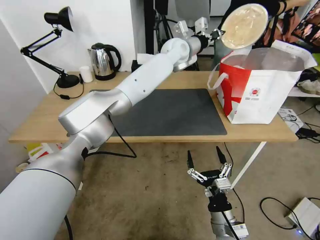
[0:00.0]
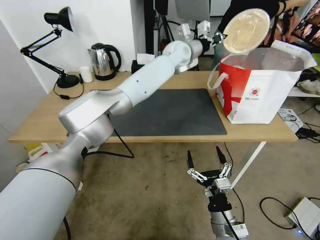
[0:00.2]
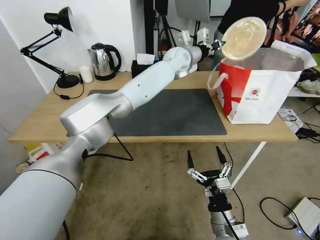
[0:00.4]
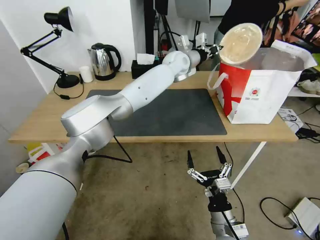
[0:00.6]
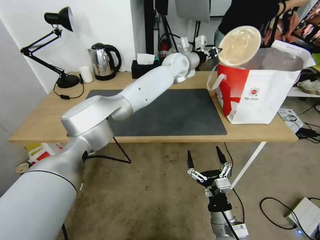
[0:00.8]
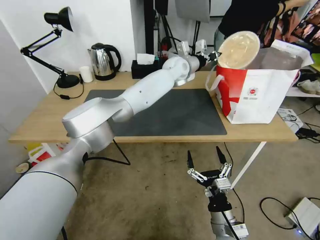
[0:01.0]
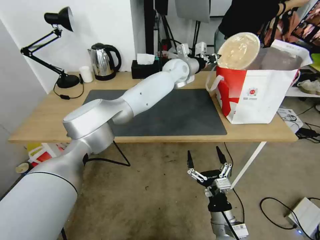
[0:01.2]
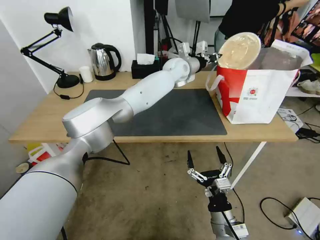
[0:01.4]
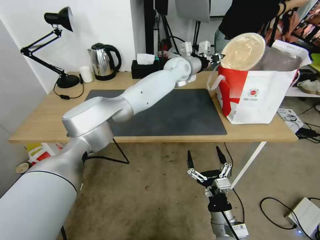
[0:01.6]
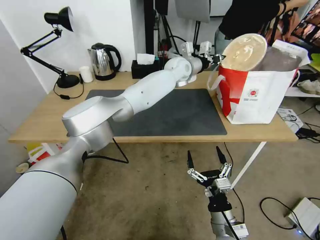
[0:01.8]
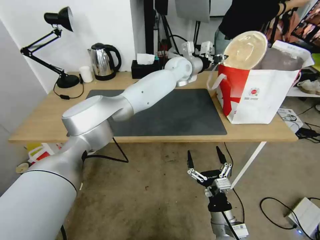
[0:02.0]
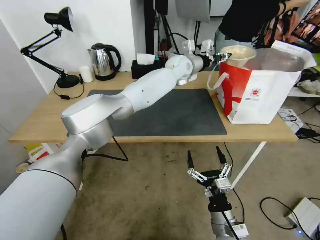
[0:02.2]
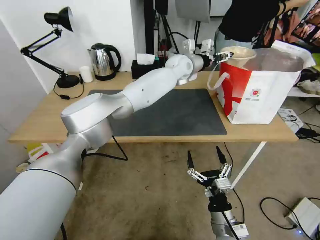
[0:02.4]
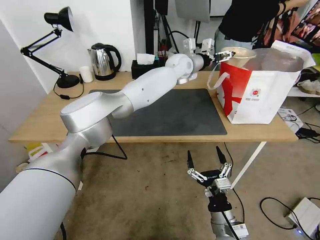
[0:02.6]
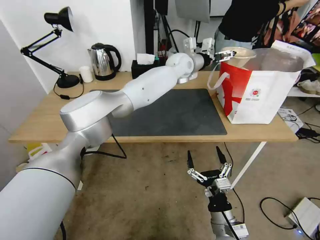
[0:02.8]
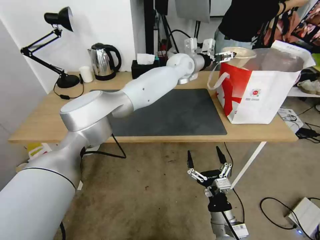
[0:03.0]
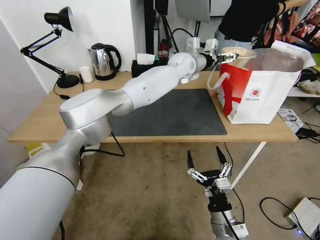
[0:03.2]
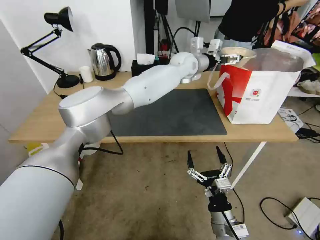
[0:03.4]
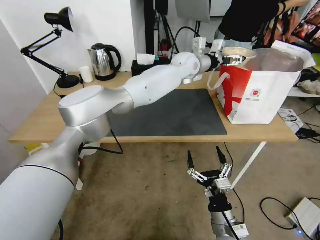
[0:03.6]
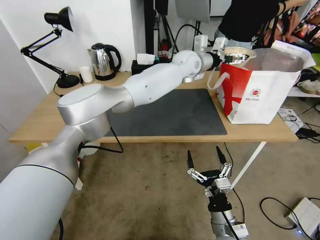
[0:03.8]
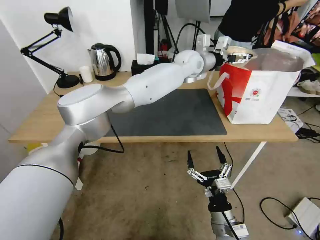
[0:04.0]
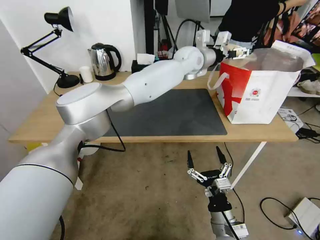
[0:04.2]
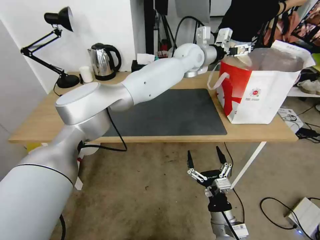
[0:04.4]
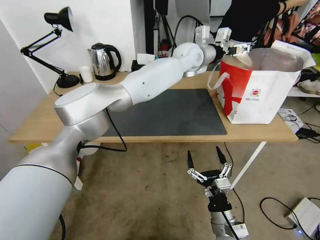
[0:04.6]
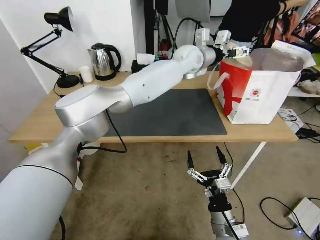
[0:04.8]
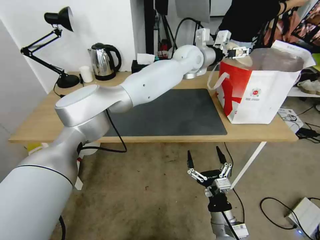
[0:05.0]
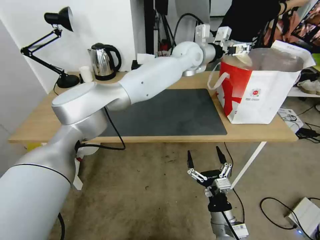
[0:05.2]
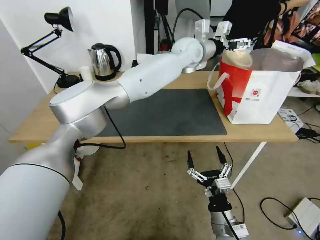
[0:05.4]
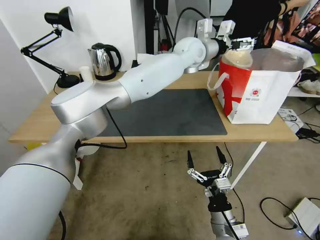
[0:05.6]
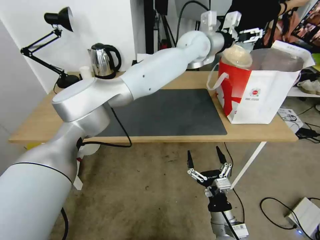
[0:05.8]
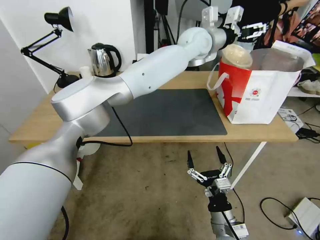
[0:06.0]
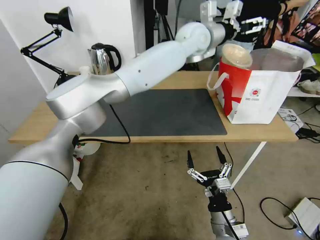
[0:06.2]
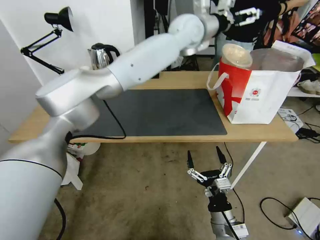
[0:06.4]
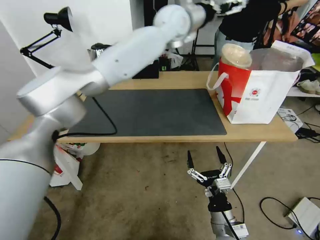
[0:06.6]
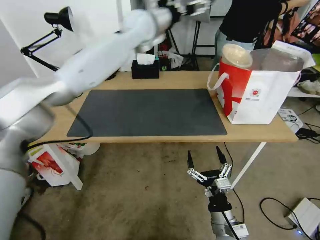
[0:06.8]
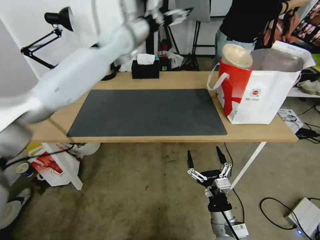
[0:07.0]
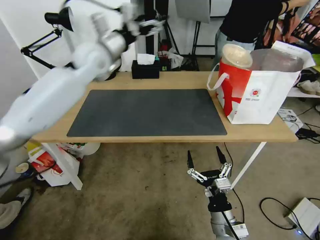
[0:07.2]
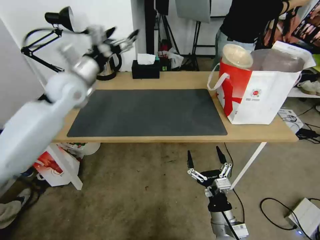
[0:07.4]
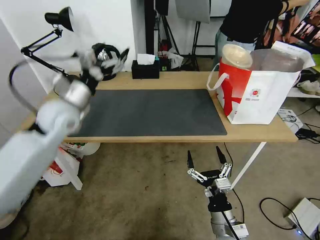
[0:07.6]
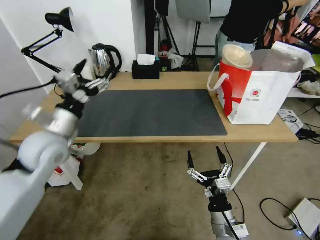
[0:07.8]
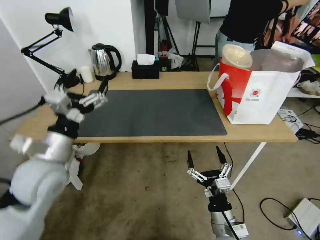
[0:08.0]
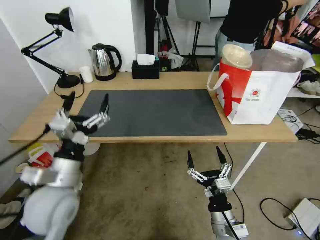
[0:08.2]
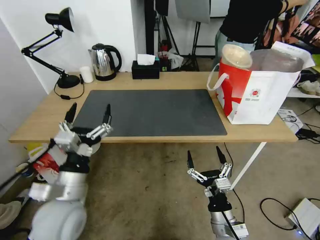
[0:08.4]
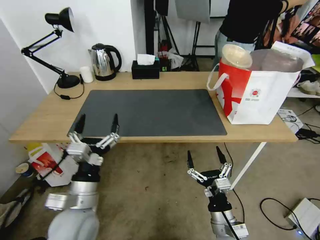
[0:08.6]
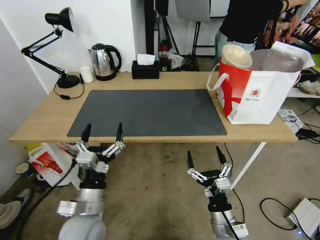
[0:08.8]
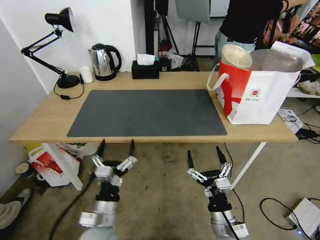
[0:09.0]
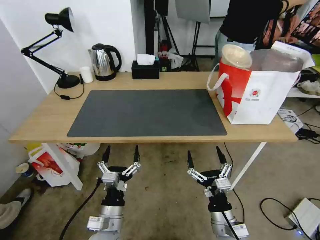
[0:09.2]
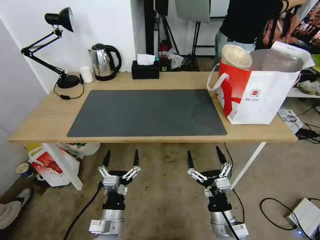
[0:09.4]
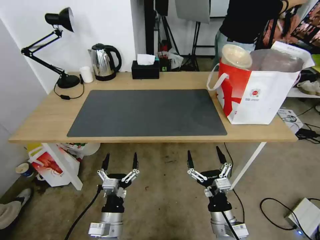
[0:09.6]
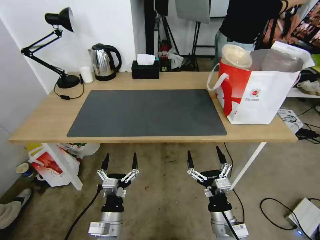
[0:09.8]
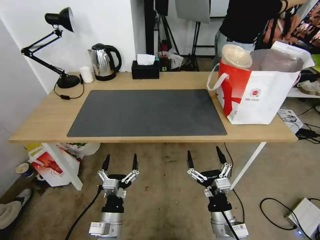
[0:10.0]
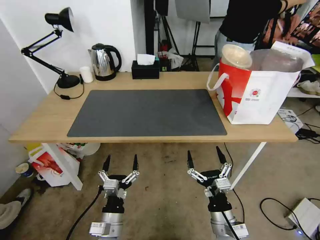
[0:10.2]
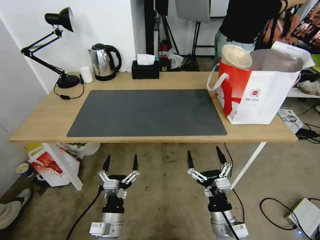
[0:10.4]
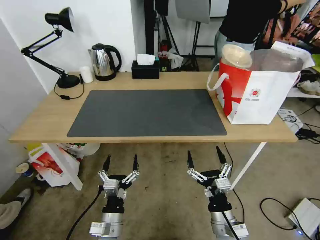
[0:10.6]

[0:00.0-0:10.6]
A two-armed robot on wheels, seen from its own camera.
Task of the whole recording: Pick up the trash from the table and place it into the takeout bag.
0:00.0 to 0:01.6: The left gripper heads downward, covering approximately 5 cm.
0:01.6 to 0:03.0: The left gripper opens its fingers.
0:03.0 to 0:04.6: The left gripper shifts by roughly 5 cm.
0:04.6 to 0:06.0: The left gripper ends up roughly 5 cm from where it was.
0:06.0 to 0:07.6: The left gripper travels to the left and backward by some 40 cm.
0:07.6 to 0:09.0: The left gripper is displaced backward, downward and to the right by some 35 cm.
0:09.0 to 0:10.6: The left gripper moves downward, approximately 5 cm.
